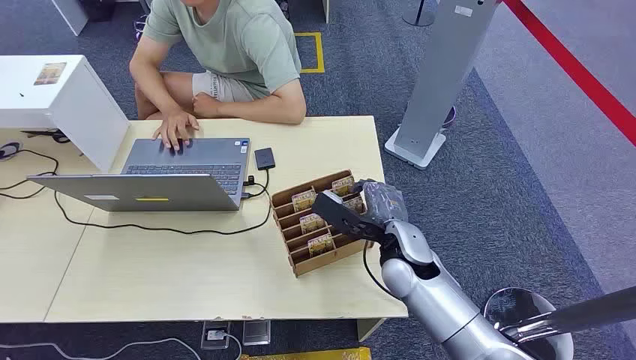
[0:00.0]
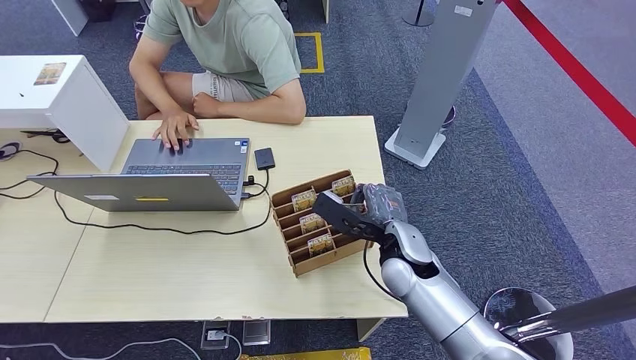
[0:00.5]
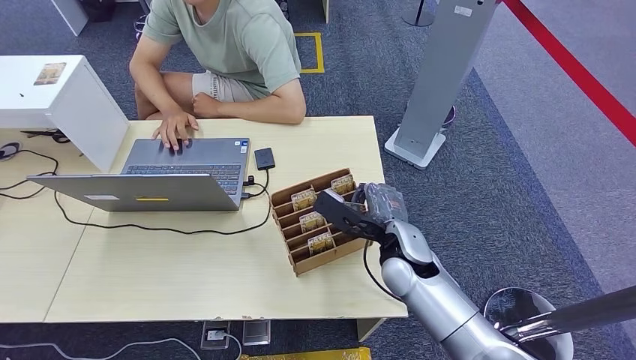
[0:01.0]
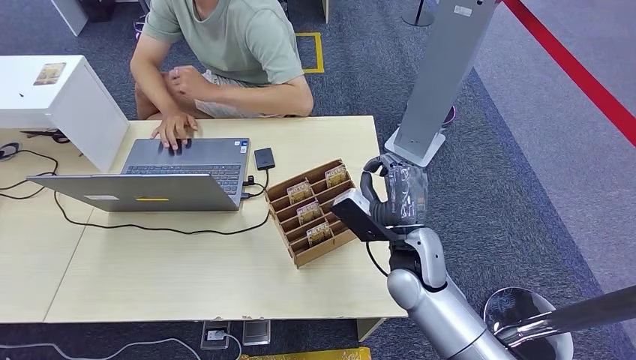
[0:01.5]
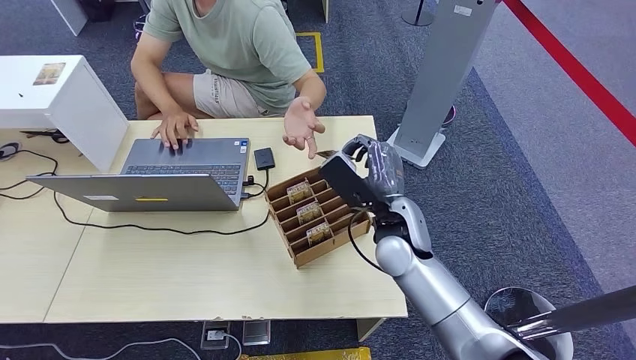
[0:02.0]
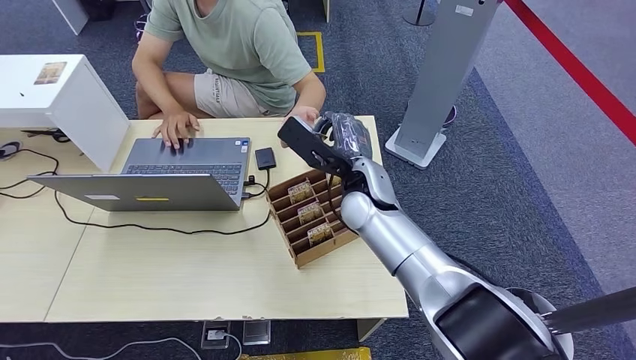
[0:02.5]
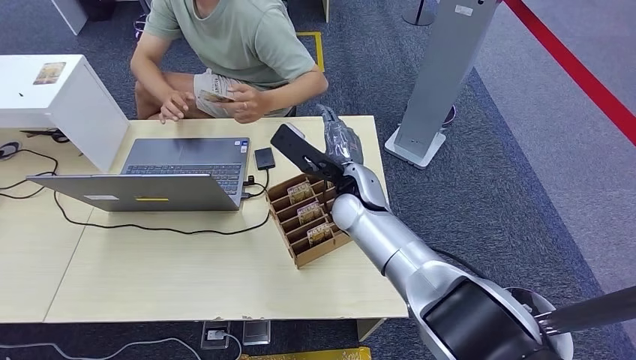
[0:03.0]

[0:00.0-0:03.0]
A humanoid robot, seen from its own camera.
Step, 0:02.5 to 0:03.0: Hand the room card to the target.
0:01.5 to 0:03.0: The right hand goes approximately 15 cm forward and to the left.

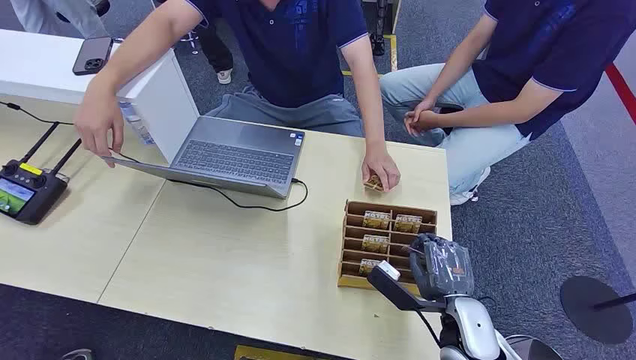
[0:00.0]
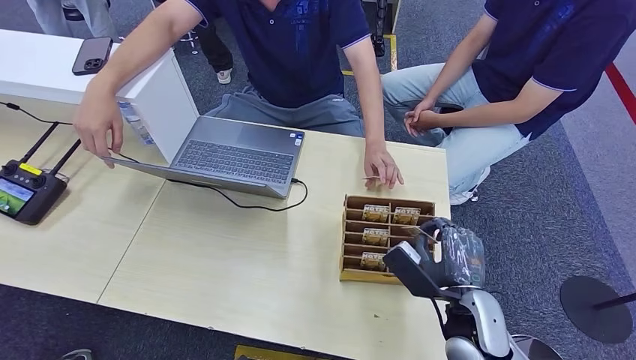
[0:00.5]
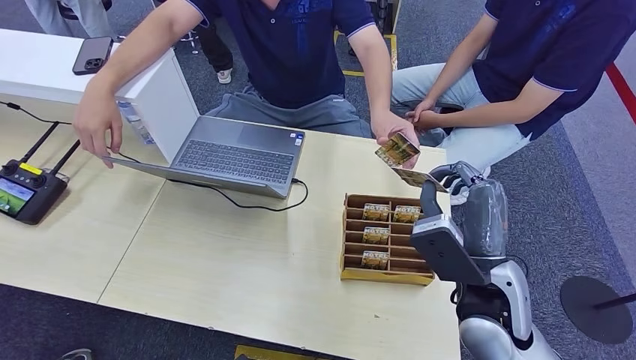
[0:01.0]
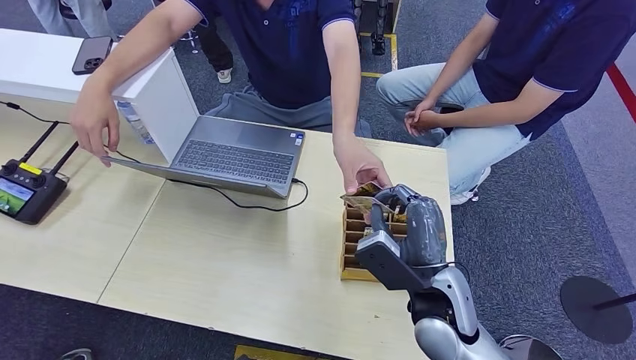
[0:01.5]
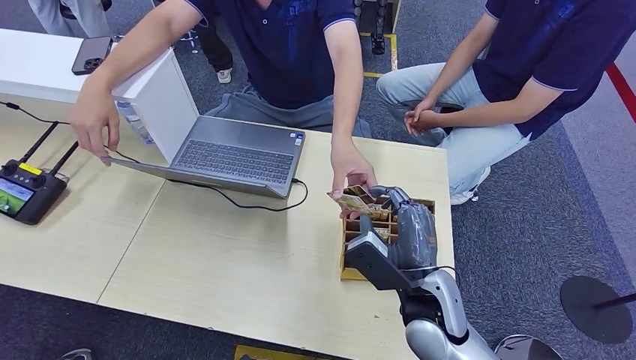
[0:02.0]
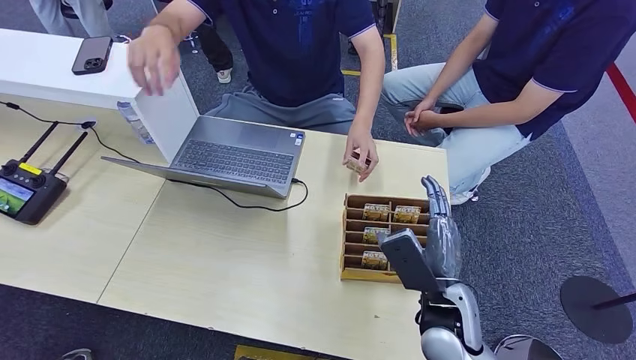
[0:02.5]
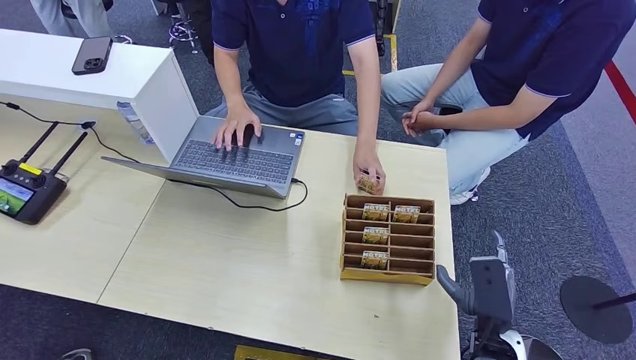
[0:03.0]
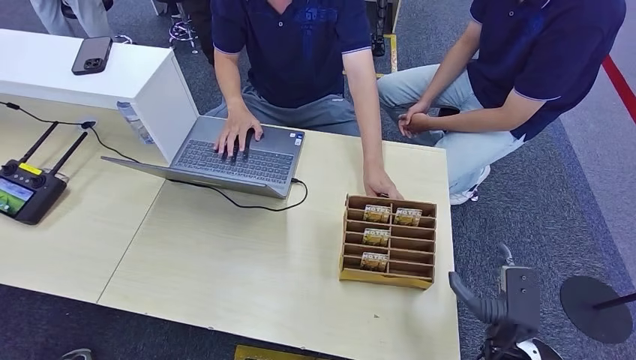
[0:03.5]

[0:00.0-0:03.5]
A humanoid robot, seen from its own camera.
Step, 0:00.0 to 0:02.0: Pick up the room card from the card holder.
Step, 0:02.5 to 0:03.5: Hand the room card to the target.
0:02.0 to 0:03.5: The right hand moves to the right and downward, roughly 15 cm.
